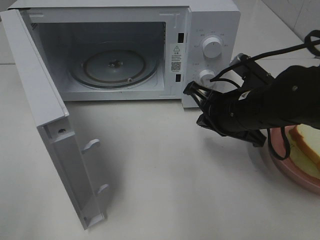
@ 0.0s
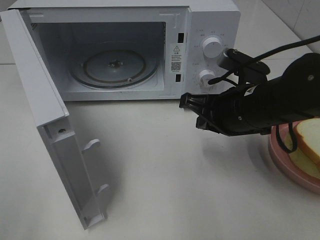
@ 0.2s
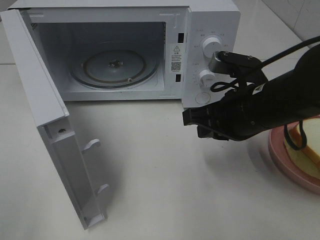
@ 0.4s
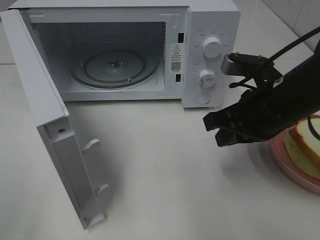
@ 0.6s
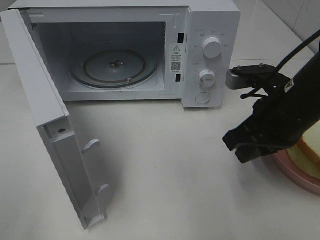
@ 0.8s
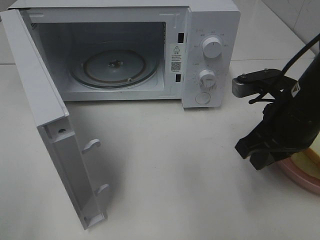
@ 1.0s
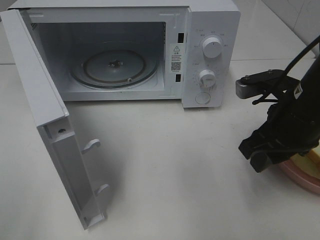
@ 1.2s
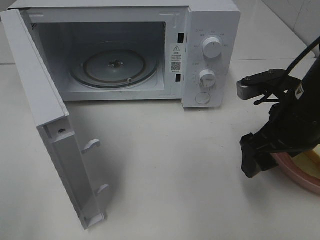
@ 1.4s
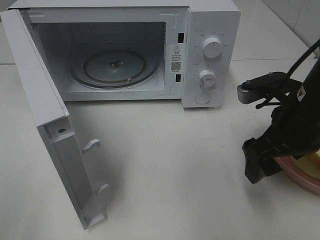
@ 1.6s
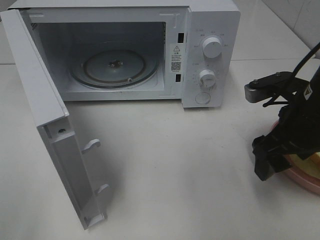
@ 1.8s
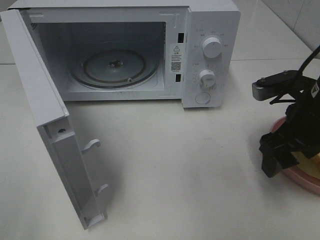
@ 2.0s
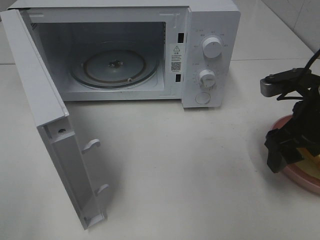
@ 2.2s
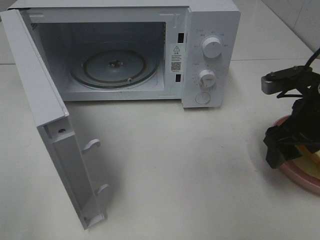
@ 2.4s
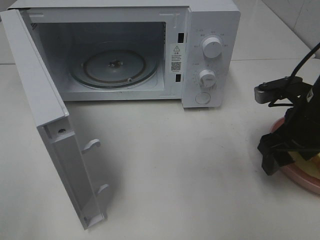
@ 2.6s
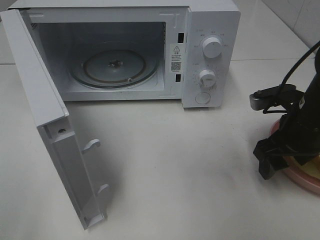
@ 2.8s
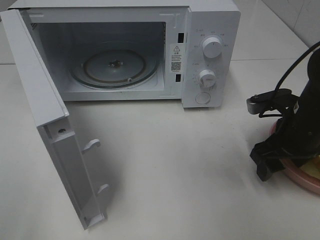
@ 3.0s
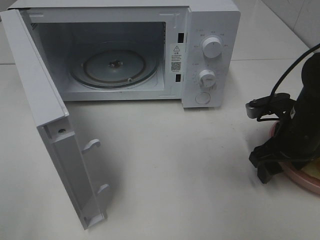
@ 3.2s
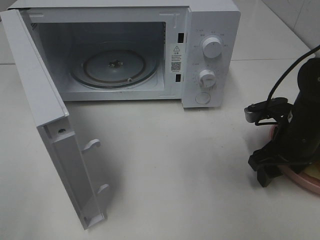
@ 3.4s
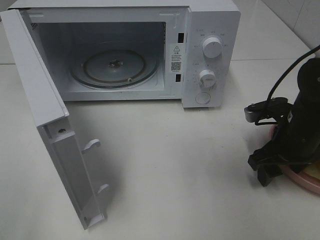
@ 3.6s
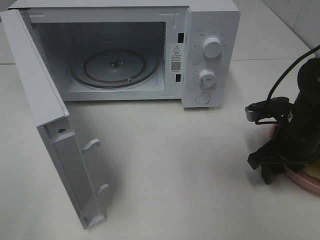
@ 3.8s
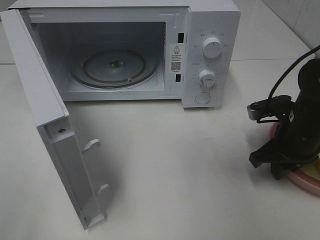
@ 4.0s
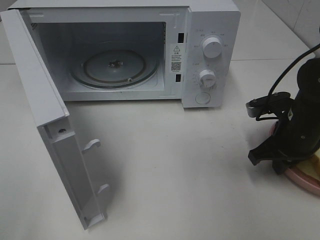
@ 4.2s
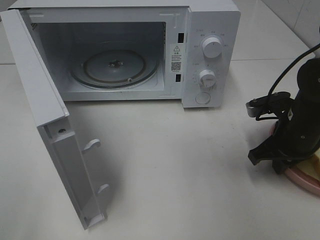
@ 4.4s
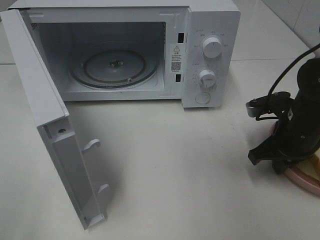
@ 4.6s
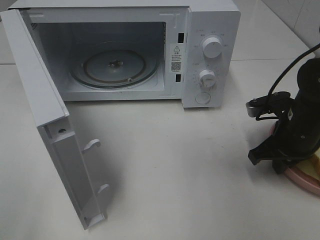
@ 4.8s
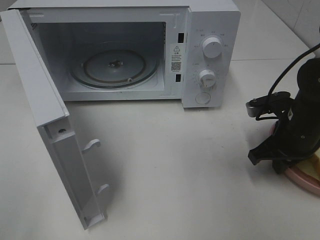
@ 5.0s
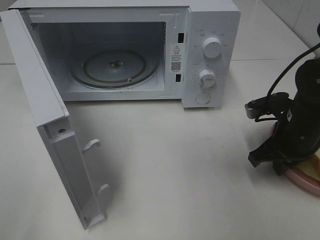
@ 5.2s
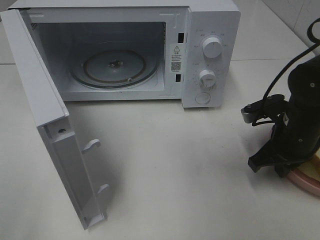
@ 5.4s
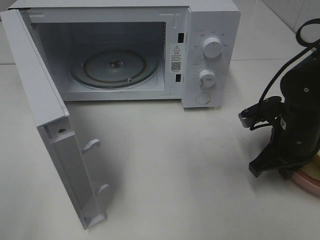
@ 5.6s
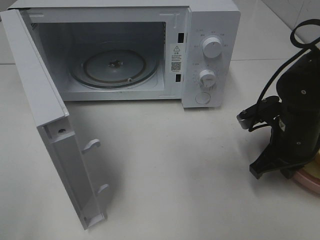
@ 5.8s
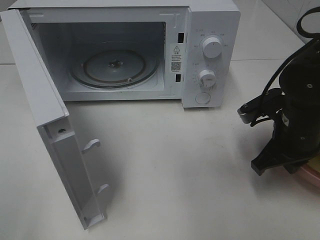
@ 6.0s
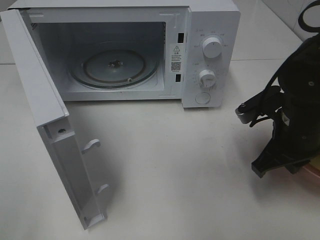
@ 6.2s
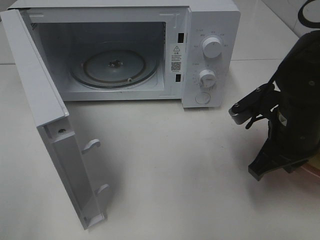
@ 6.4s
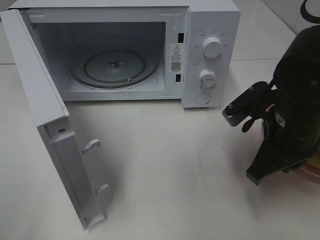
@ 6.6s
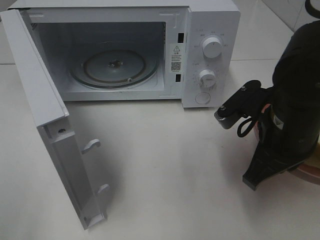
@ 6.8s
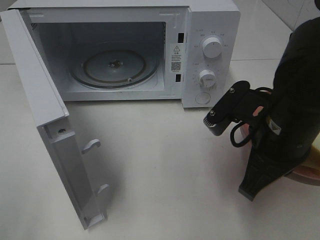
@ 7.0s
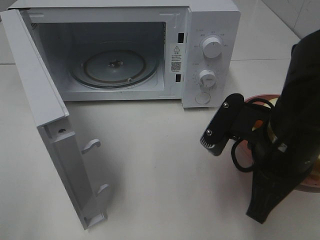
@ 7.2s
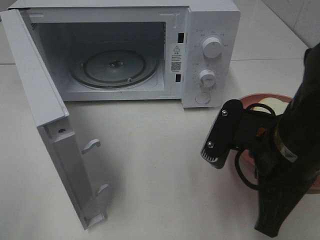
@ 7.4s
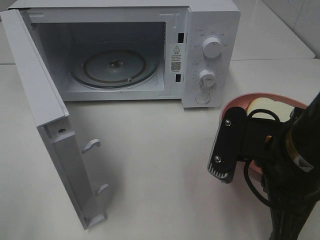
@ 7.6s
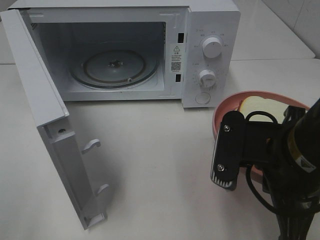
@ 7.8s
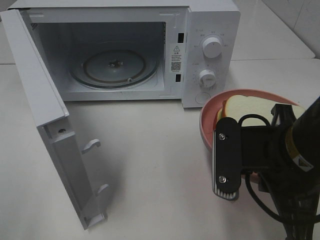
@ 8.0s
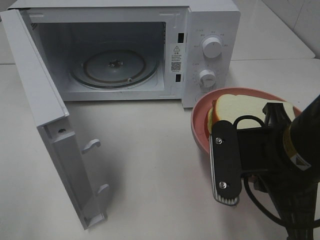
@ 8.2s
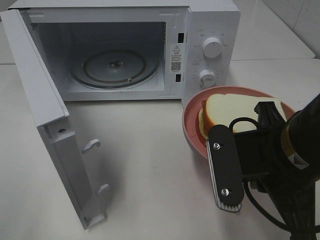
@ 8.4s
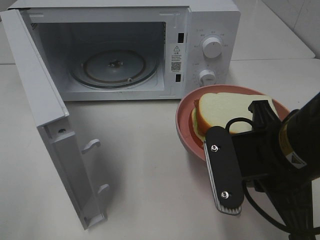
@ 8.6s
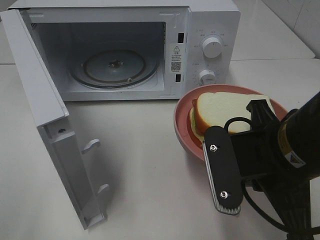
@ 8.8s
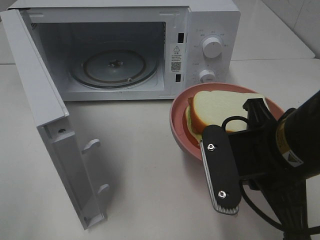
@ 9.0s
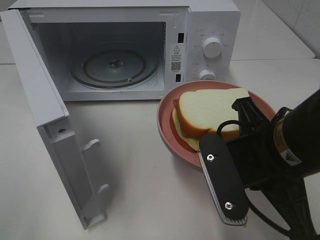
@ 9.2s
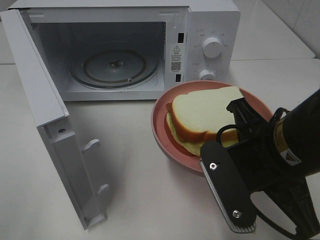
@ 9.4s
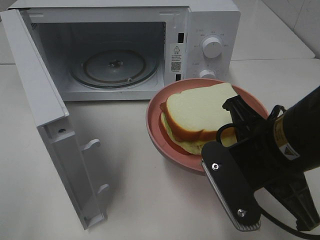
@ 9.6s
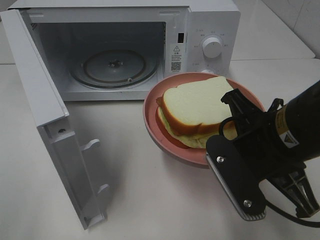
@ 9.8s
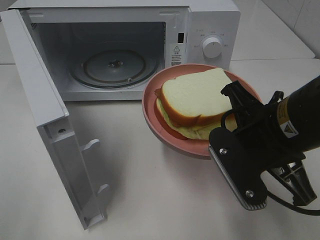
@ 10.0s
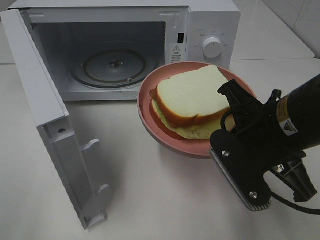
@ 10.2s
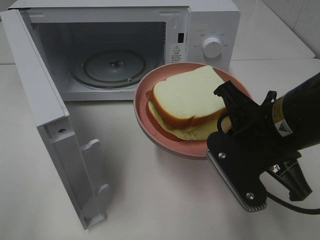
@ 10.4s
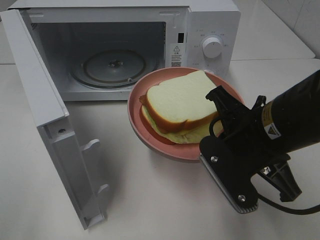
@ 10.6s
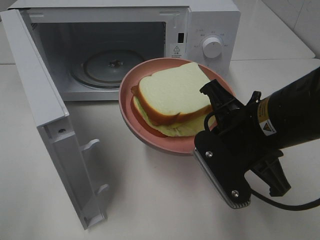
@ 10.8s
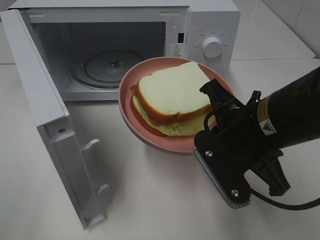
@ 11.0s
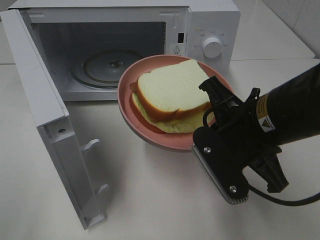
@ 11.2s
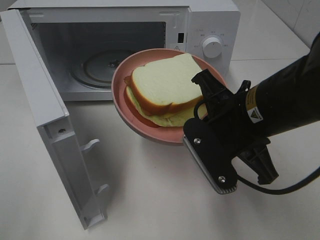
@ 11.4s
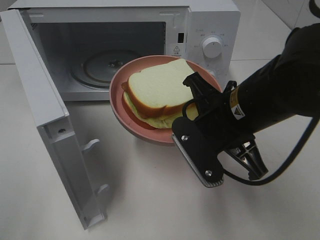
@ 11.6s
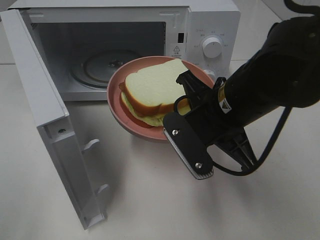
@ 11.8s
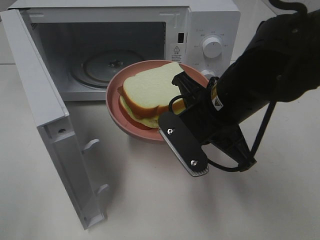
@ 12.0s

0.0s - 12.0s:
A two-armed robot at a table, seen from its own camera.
Task of the whole recording: Heat Sandwich.
Step, 0.0s - 4.6s: Right hand: grab the plate with the sandwich.
0.0s - 1.6s: The right gripper goes about 5 cm to the right, and opens up.
1.6s - 3.0s: The right gripper moves downward, about 5 cm.
3.0s - 4.4s: The right gripper closes.
4.4s - 6.0s: The grippers make only small movements.
6.0s - 7.6s: The right gripper goes roughly 15 cm backward, to the left and upward.
10.4s - 12.0s: The right gripper shifts approximately 5 cm forward and to the left.

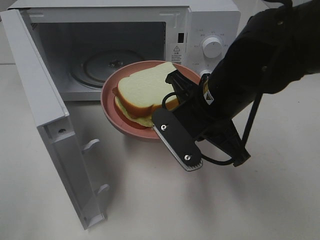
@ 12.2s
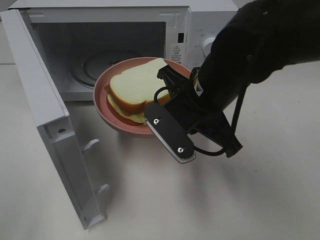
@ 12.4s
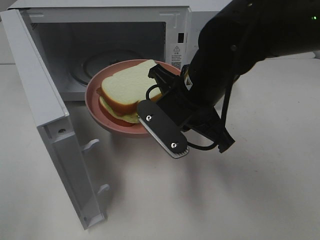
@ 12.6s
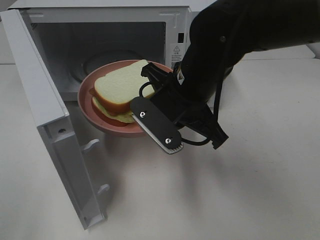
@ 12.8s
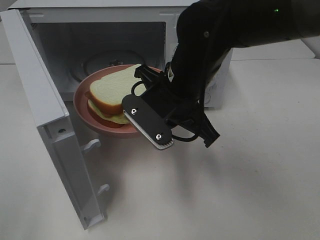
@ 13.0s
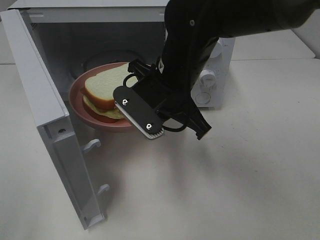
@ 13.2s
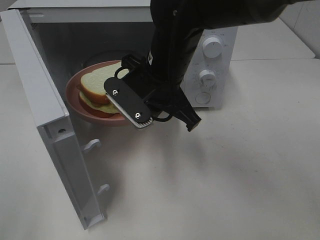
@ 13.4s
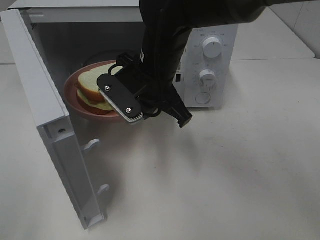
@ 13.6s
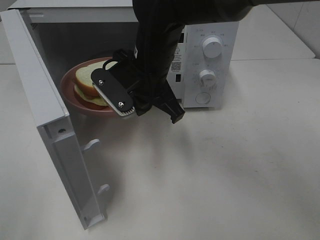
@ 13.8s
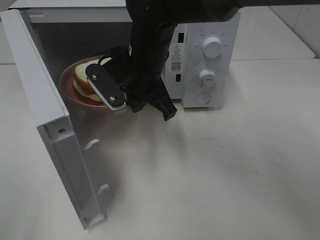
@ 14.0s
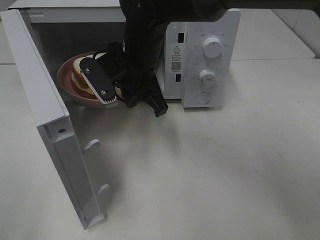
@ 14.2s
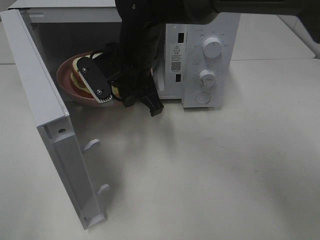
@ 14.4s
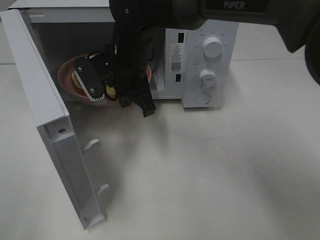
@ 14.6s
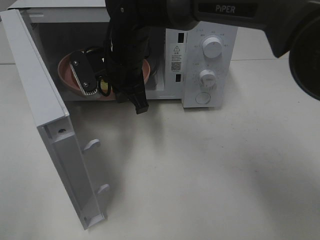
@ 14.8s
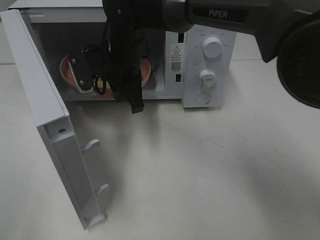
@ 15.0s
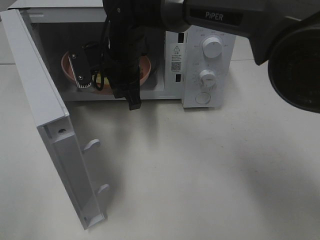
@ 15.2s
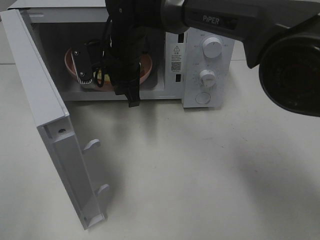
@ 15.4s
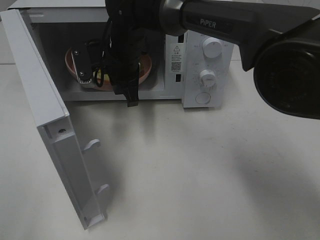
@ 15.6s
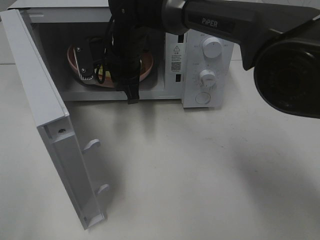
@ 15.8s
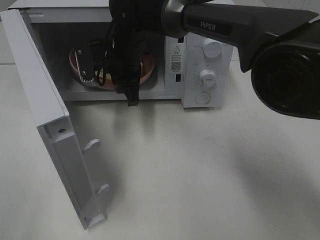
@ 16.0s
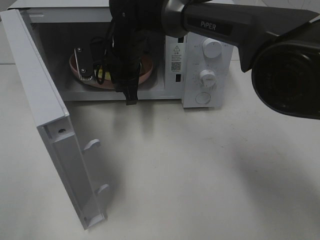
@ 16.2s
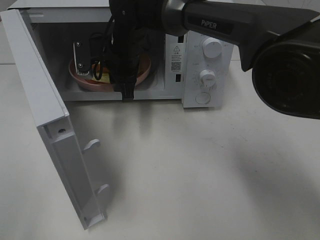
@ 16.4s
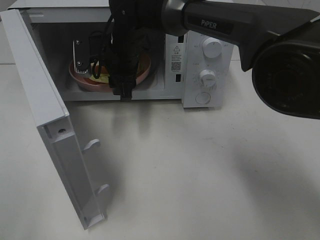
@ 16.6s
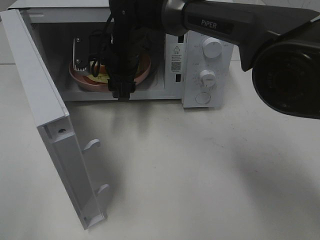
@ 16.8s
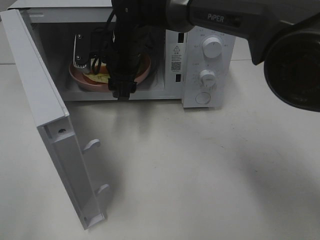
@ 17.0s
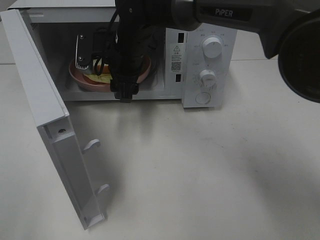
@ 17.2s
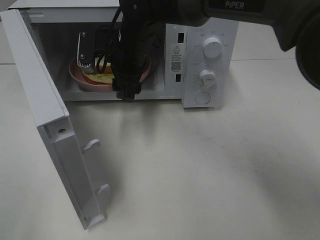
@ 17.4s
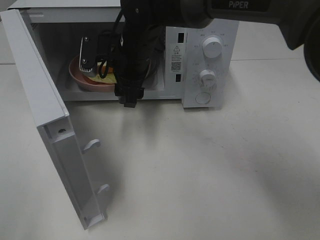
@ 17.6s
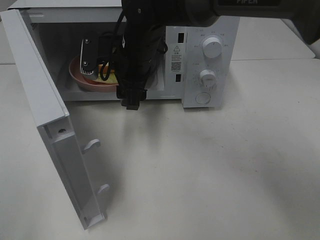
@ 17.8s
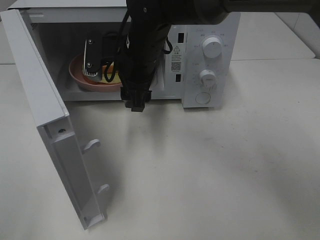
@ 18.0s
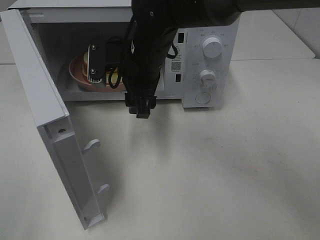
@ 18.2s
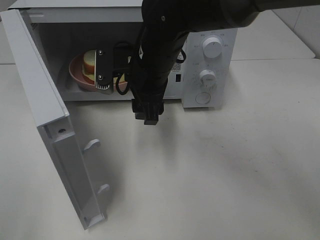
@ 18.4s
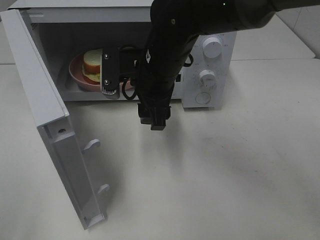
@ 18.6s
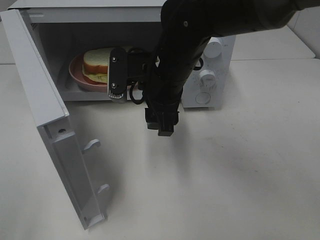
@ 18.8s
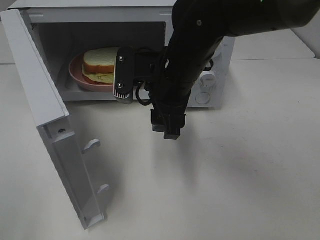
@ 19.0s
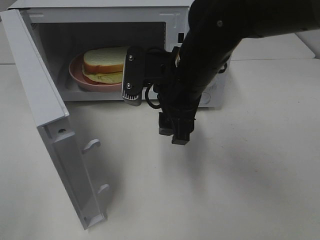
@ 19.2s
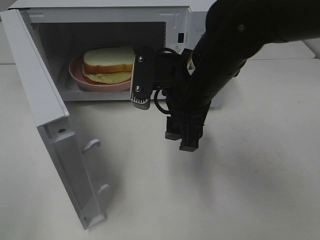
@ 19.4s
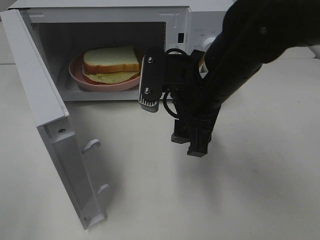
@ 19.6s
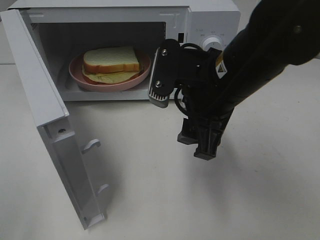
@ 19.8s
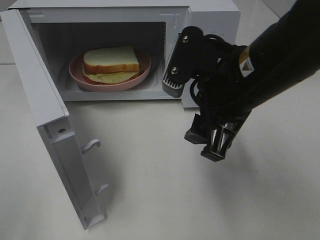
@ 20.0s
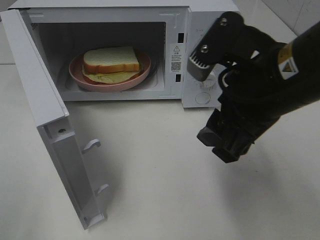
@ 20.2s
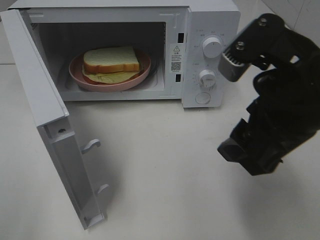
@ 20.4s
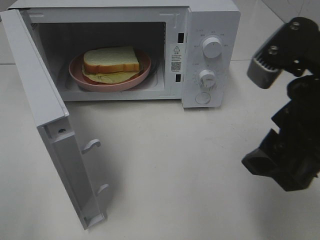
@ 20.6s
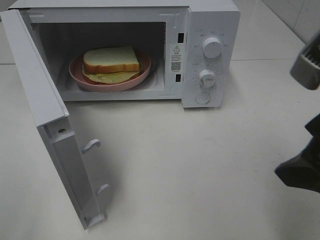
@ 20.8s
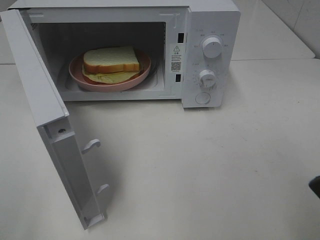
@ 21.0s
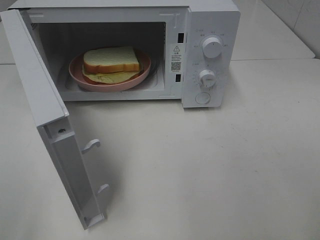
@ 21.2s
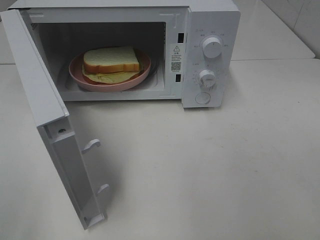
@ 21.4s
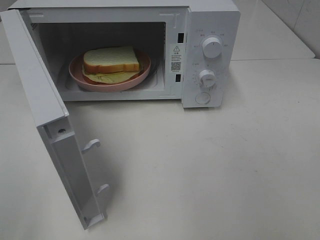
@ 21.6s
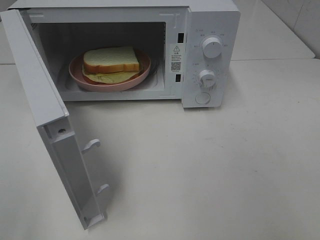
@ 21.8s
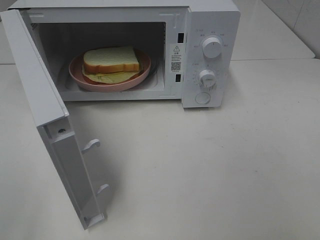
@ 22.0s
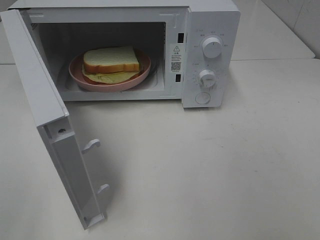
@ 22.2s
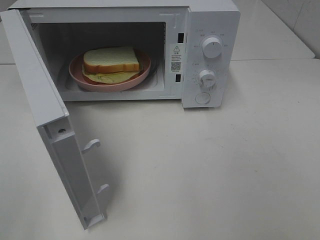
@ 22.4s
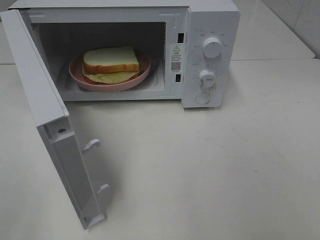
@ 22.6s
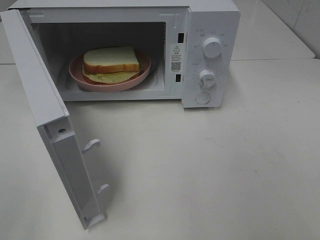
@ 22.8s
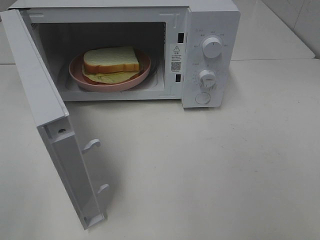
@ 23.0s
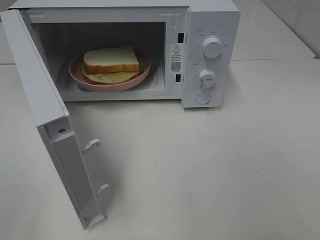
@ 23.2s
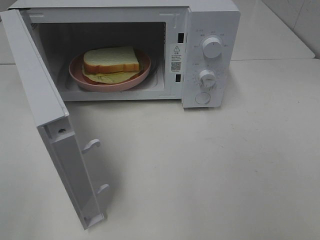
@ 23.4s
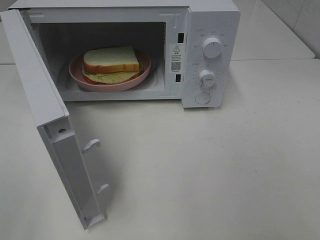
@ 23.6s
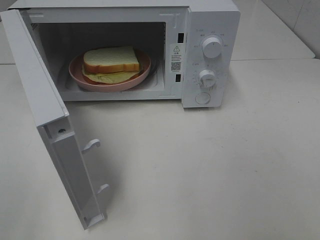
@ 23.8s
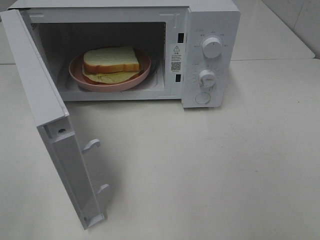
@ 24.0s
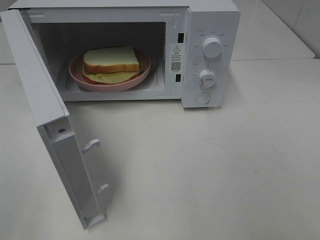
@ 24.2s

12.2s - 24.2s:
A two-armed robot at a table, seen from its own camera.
Task of the whole recording: Heat Sandwich.
Step, 12.2s - 18.0s: Right hand: place the plate in the microwave.
12.2s - 13.8s: The right gripper moves to the left and forward, approximately 10 cm.
13.8s - 15.2s: The right gripper is displaced forward by approximately 5 cm.
15.2s - 16.6s: The right gripper opens up.
16.6s - 18.2s: The right gripper heads backward, covering approximately 5 cm.
18.2s - 19.8s: The right gripper is displaced backward and to the right by approximately 15 cm.
19.8s - 21.2s: The right gripper heads backward, to the right and upward, covering roughly 20 cm.
22.6s - 24.2s: The two grippers keep their place.
